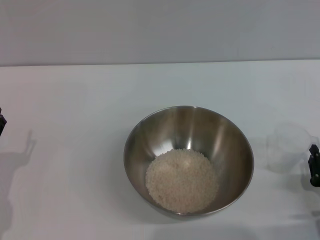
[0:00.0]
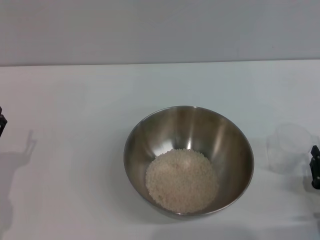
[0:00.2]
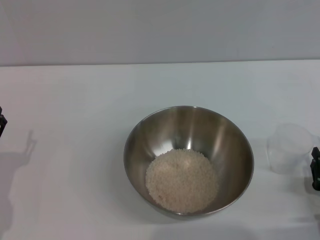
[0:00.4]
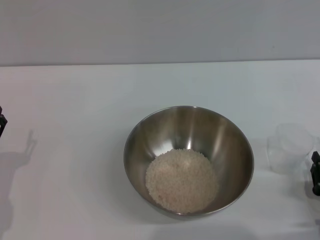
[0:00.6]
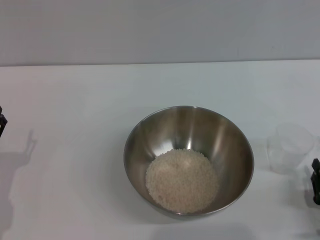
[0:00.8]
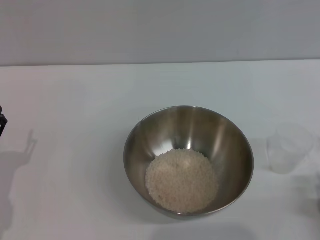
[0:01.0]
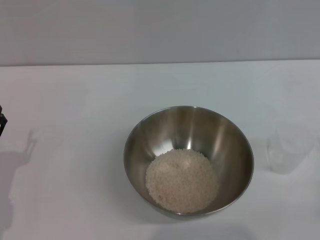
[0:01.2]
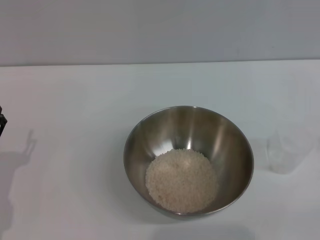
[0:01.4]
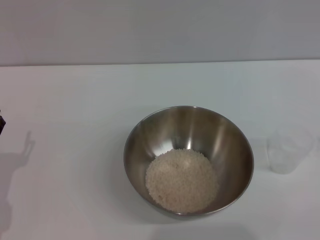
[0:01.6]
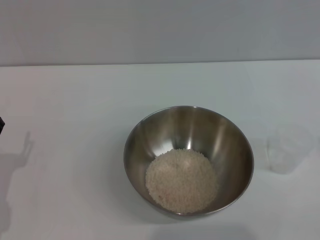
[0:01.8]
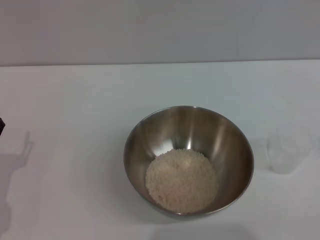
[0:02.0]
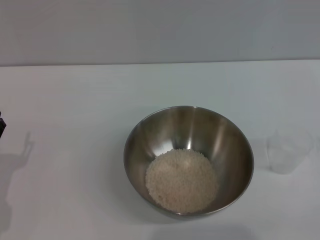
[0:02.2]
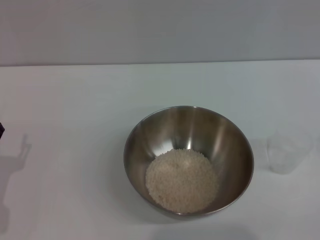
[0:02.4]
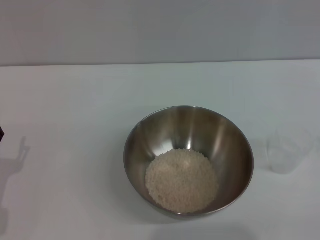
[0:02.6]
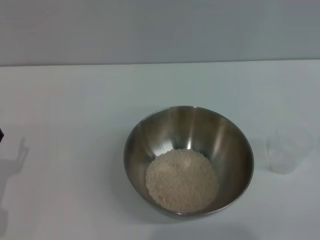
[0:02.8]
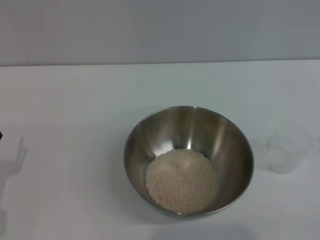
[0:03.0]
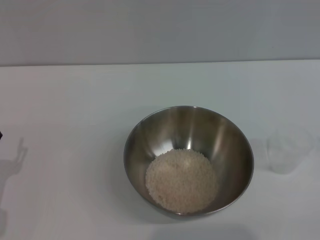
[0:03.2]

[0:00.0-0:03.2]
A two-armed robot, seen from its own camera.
Task of the whole recording: Place the bowl in the middle of the table with one hand and pour the rice from the grain cup into it with the other hand.
0:00.0 to 0:01.6: The right gripper travels backward and to the right by roughly 10 cm.

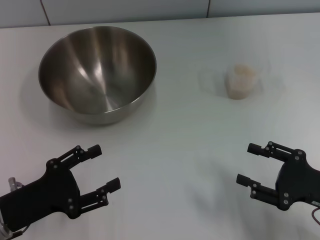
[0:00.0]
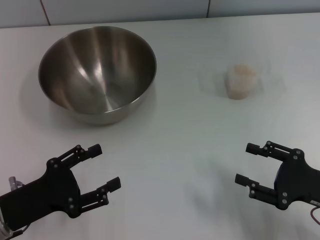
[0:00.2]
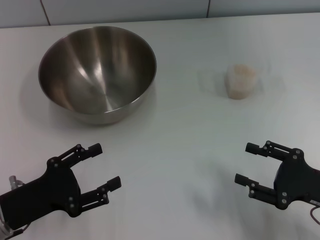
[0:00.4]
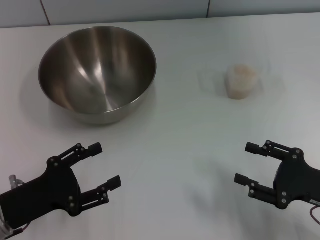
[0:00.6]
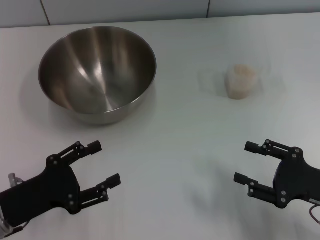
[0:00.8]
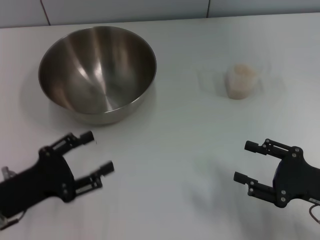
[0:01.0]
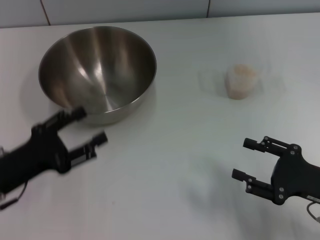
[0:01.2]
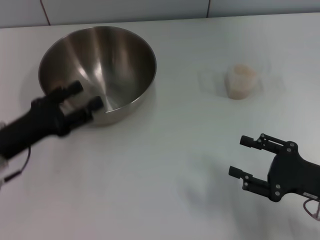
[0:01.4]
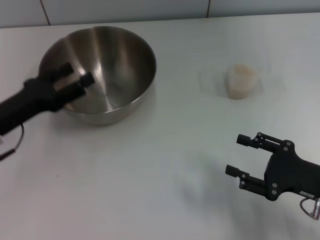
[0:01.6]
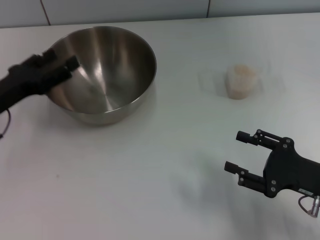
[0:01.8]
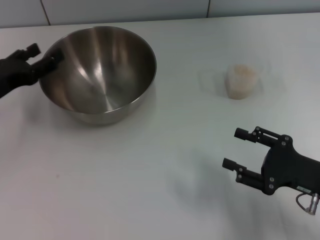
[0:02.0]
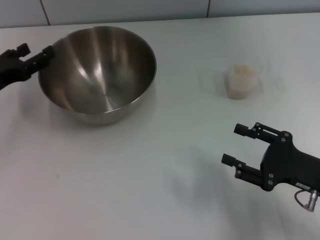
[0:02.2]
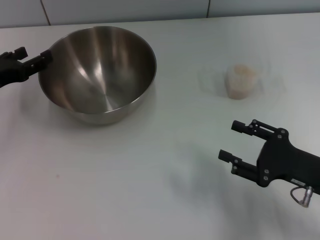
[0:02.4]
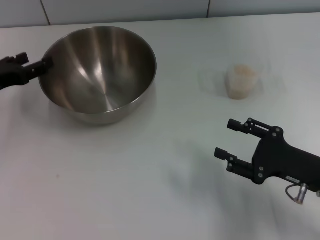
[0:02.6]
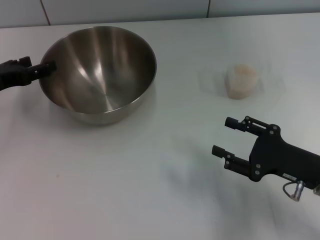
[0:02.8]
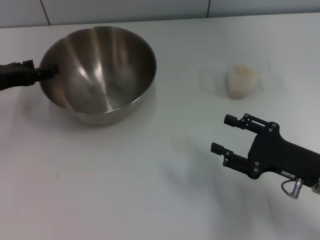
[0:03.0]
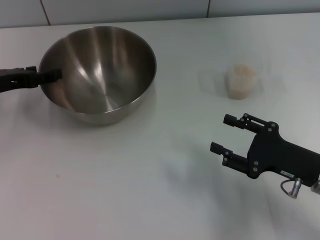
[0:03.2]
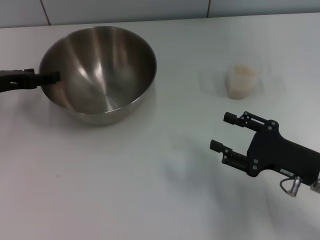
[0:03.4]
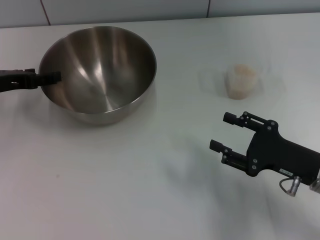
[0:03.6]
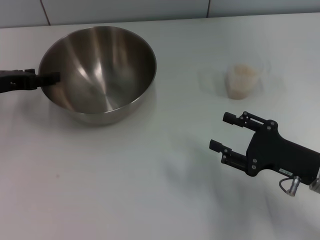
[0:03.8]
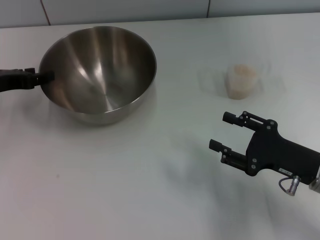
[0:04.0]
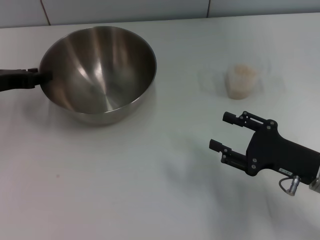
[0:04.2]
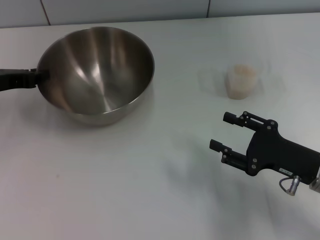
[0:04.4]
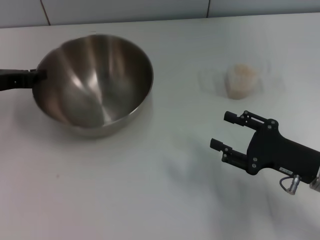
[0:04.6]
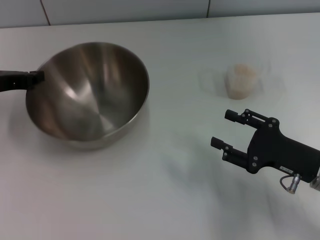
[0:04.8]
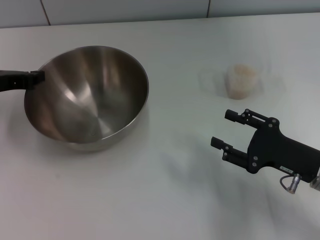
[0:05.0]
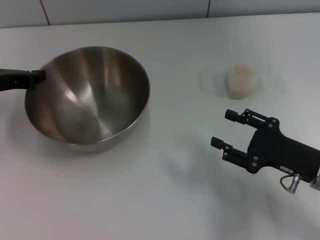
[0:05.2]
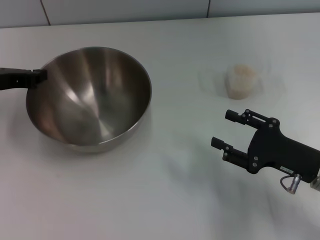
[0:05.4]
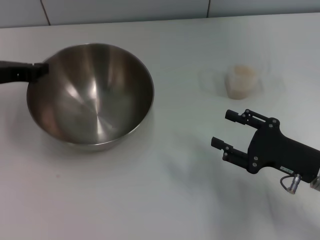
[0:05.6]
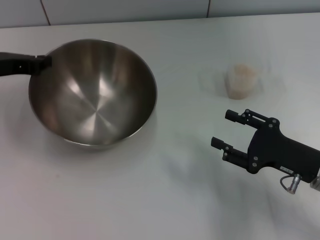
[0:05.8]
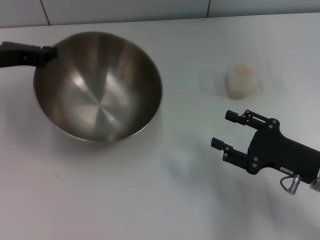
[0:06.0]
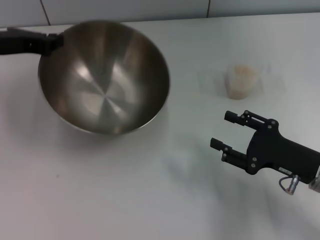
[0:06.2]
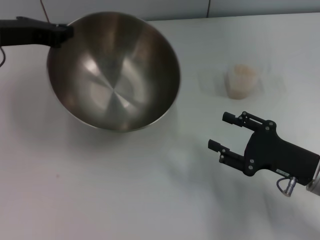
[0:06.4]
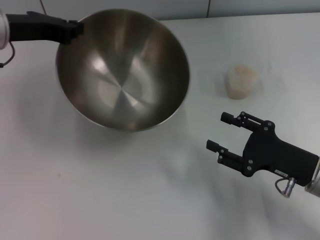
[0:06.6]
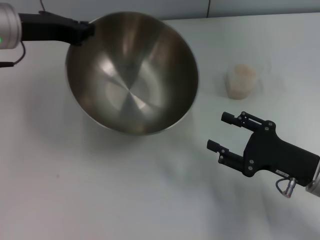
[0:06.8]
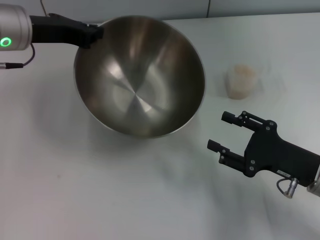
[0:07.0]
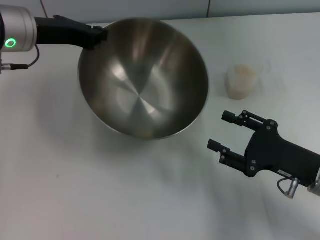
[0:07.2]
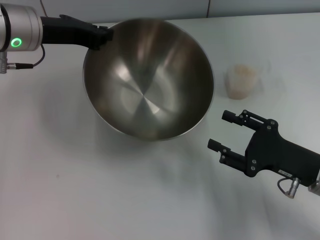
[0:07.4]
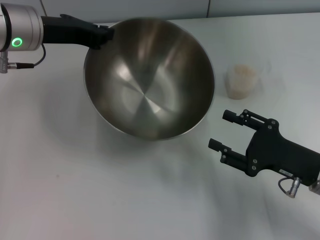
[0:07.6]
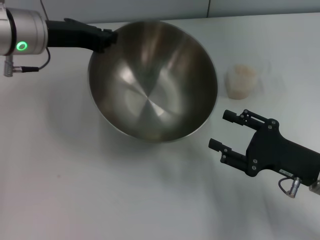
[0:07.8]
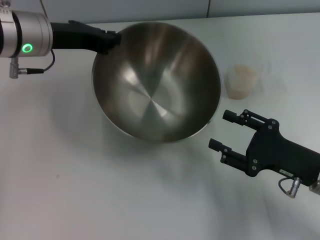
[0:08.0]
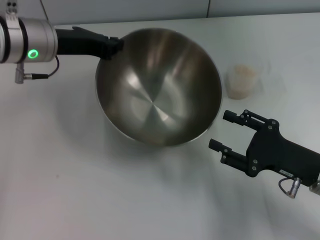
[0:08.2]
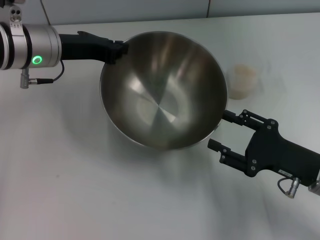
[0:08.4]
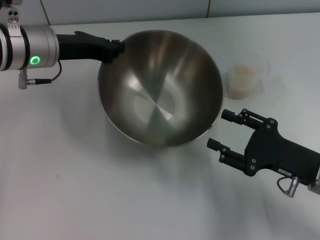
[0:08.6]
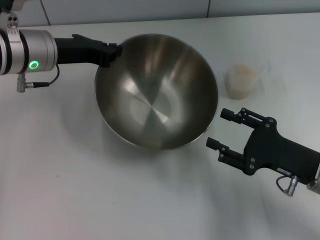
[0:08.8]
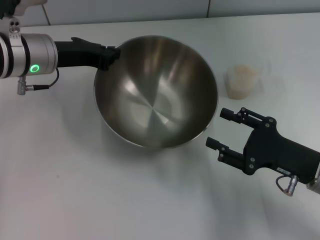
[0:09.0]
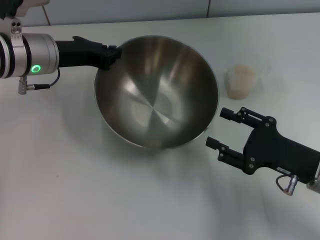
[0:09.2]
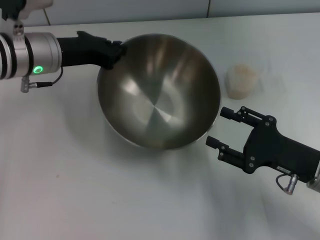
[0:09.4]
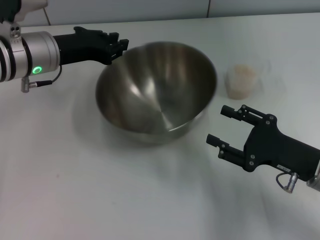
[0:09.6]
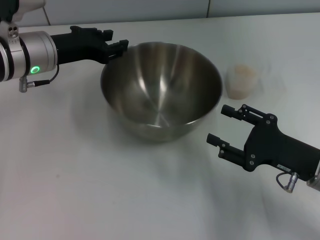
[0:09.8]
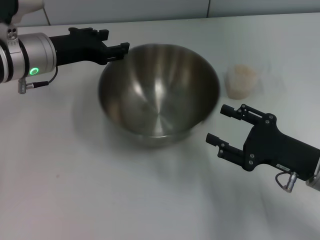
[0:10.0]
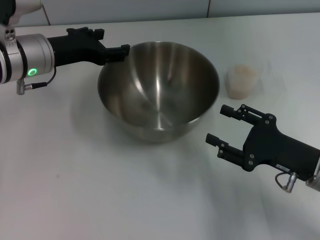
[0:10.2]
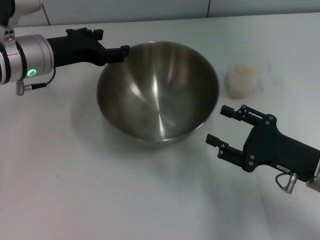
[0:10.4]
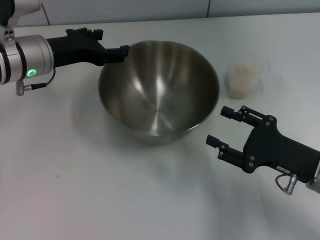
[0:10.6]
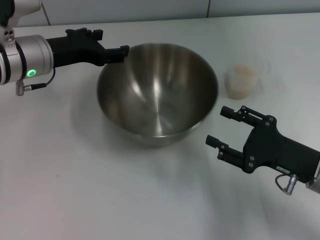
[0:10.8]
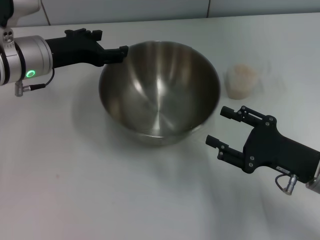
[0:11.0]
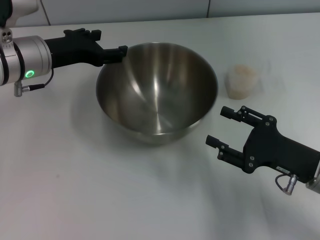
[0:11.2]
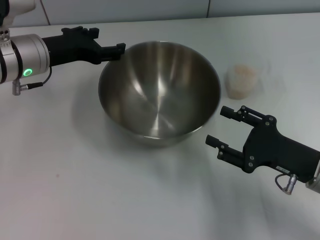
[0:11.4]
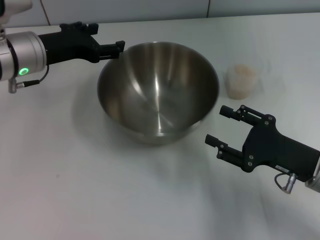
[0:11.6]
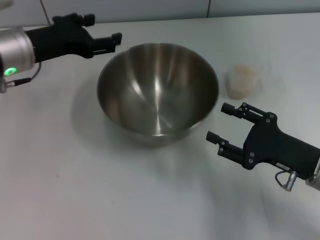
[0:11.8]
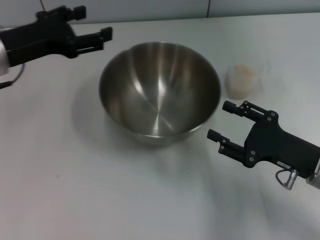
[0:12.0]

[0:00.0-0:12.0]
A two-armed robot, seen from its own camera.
Task of the whole recording: Place the bowl in the middle of the table with one hand and pour the rice from the grain cup into it with the other hand.
Step, 0:00.0 to 0:11.4: Move the bowl in the center of view with left gripper.
0:00.0 to 0:01.6: The left gripper is displaced forward by roughly 10 cm.
0:01.6 to 0:03.0: The left gripper goes roughly 5 cm forward.
0:03.0 to 0:04.4: The left gripper closes.
0:04.4 to 0:06.0: The left gripper moves roughly 5 cm, and closes its fingers.
0:06.0 to 0:07.6: The left gripper shifts roughly 10 cm to the right.
0:07.6 to 0:09.0: There are only small adjustments of the grippers.
0:09.0 to 0:10.4: The left gripper opens its fingers.
0:10.4 to 0:12.0: The left gripper shifts by roughly 5 cm.

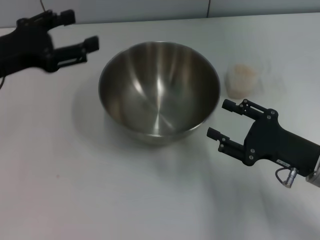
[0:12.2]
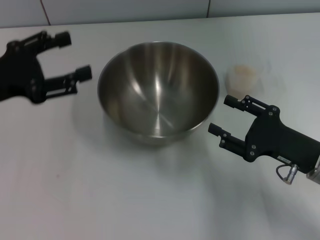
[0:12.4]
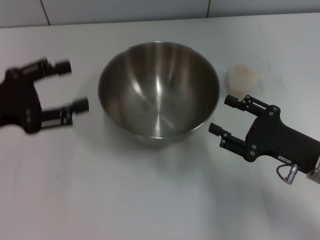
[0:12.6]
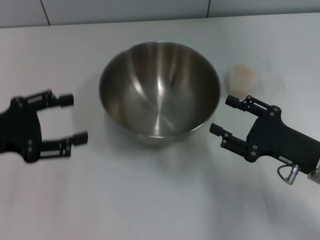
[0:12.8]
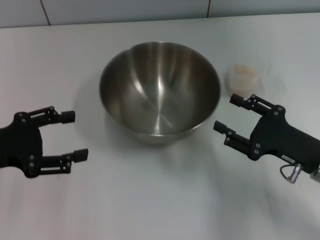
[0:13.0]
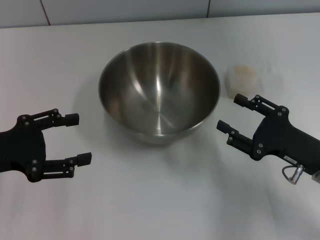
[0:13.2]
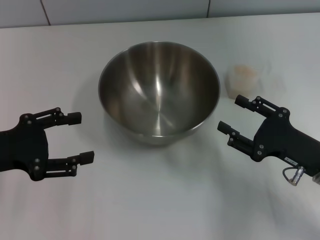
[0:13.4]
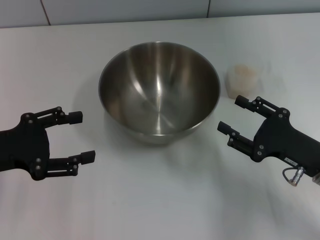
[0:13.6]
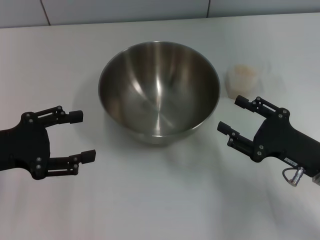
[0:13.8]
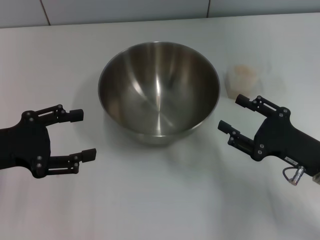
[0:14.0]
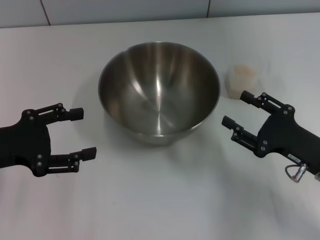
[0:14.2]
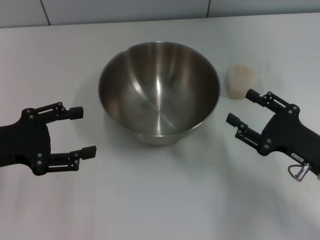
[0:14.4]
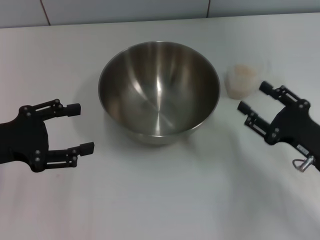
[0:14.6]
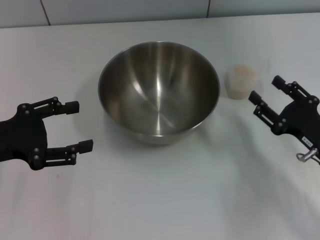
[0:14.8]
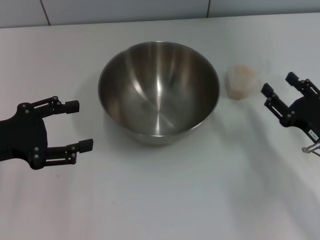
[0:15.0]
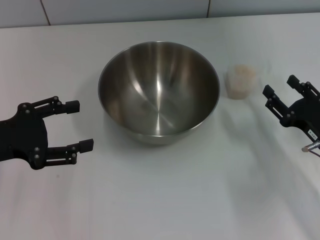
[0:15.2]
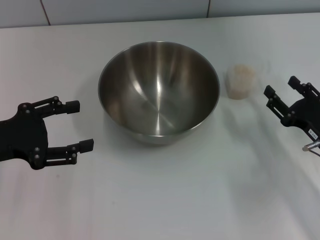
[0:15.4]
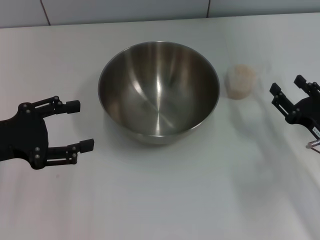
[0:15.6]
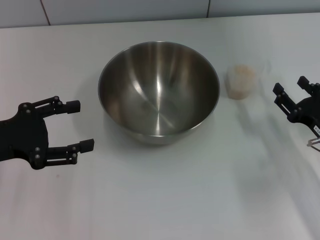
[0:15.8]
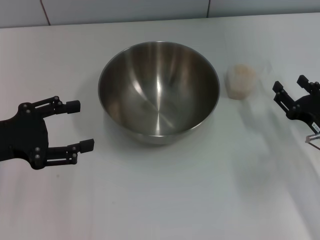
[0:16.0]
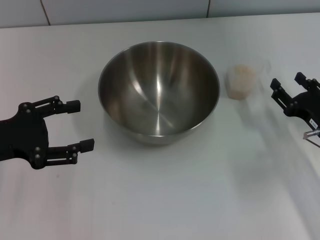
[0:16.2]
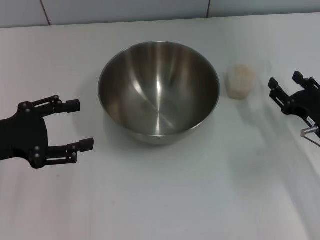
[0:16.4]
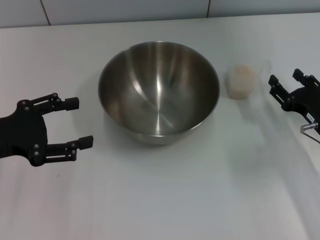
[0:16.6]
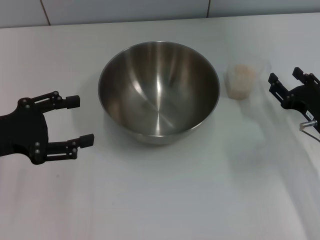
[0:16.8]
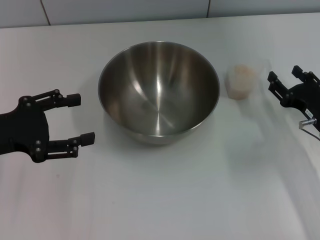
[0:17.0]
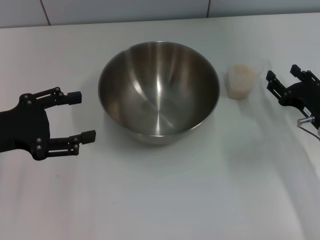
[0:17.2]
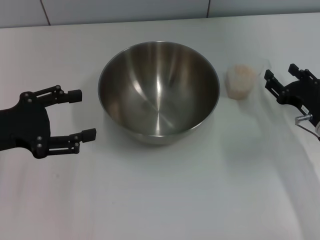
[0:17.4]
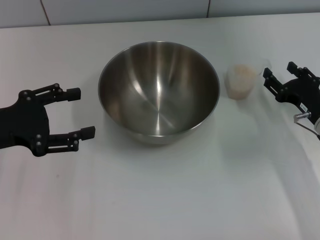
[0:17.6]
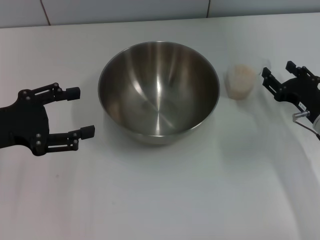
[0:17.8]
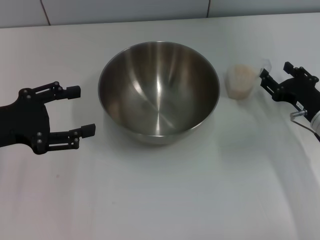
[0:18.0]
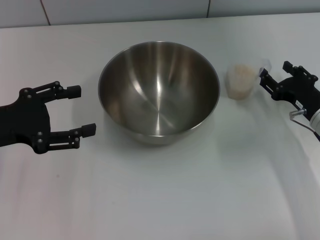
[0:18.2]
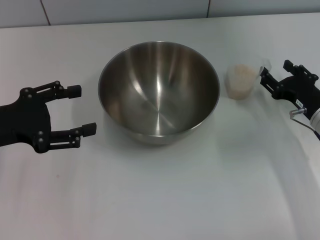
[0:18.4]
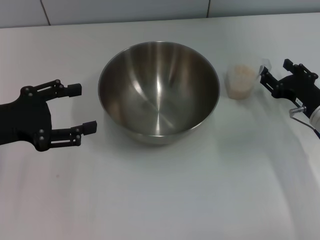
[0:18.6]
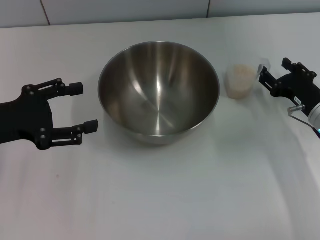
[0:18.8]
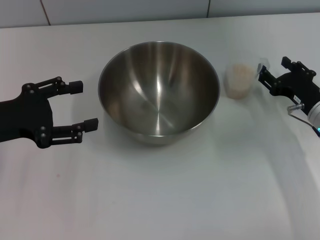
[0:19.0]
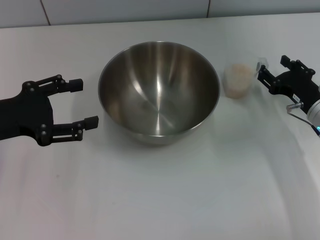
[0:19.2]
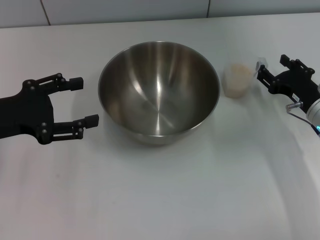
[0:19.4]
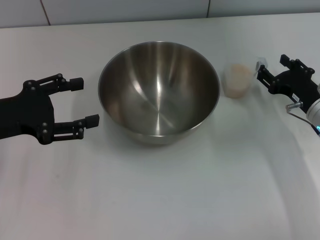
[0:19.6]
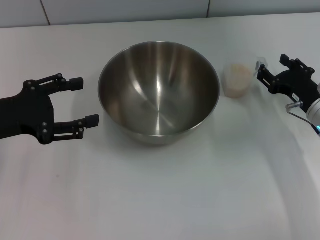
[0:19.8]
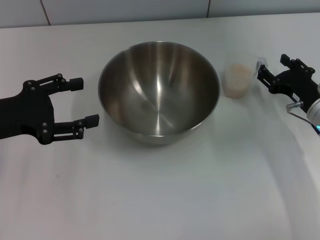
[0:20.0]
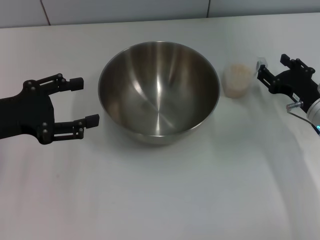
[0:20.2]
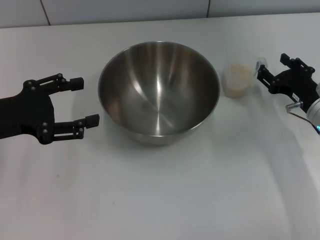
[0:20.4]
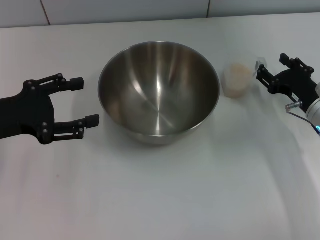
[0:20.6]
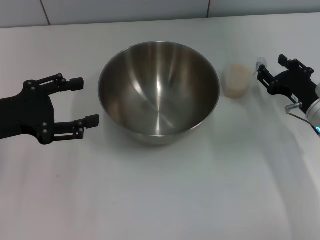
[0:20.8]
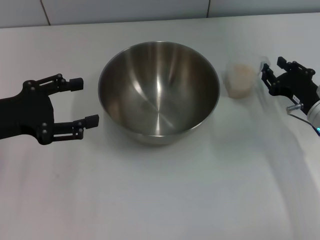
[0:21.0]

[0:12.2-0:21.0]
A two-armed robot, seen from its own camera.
Task of the whole recording: Place the bowl in the middle of the table with one hand and pour the rice from the grain cup into it with the other hand.
0:12.2 to 0:13.6: The left gripper moves backward, about 5 cm.
0:15.2 to 0:16.6: The grippers move only a little.
0:16.6 to 0:19.6: The grippers move only a little.
0:19.6 to 0:21.0: The two grippers keep their place.
